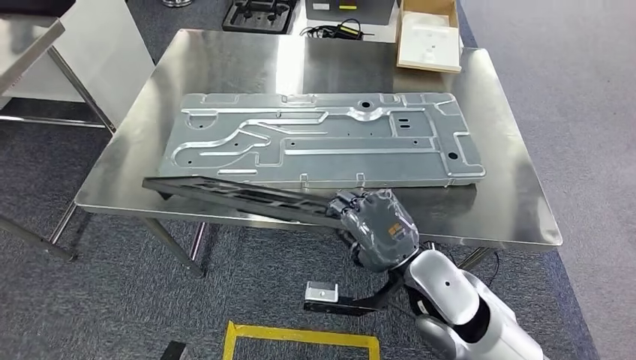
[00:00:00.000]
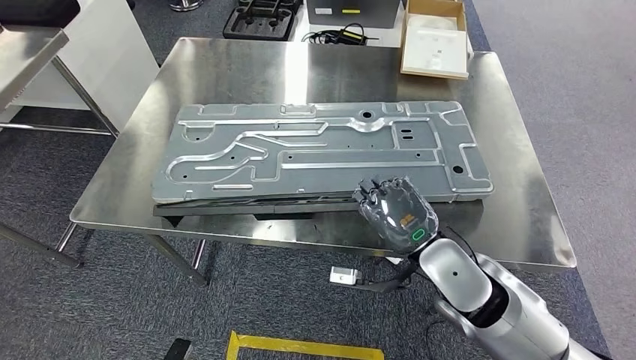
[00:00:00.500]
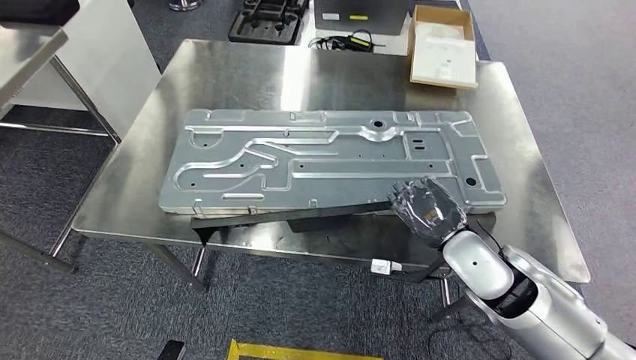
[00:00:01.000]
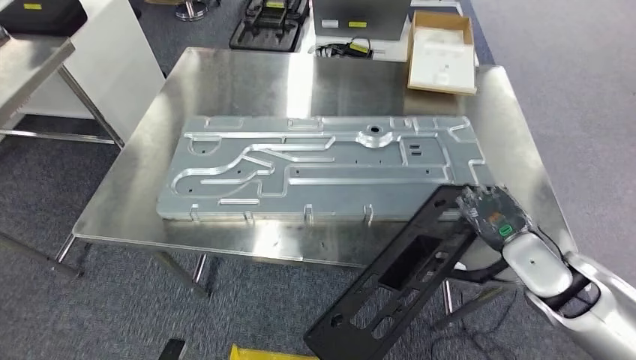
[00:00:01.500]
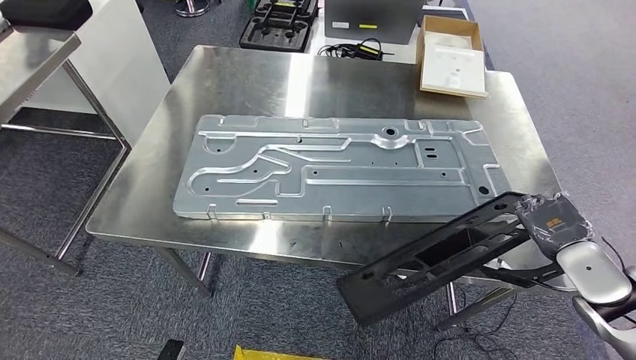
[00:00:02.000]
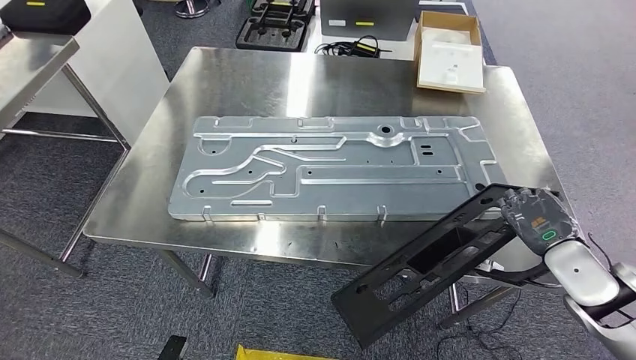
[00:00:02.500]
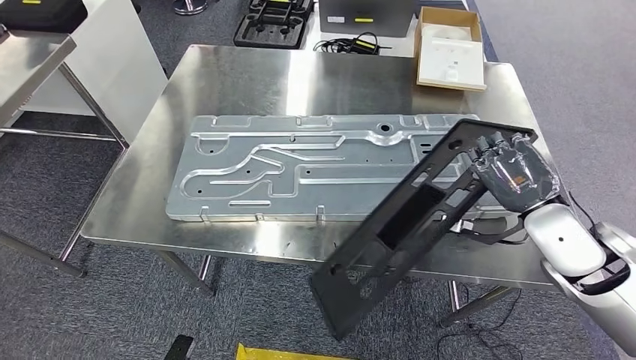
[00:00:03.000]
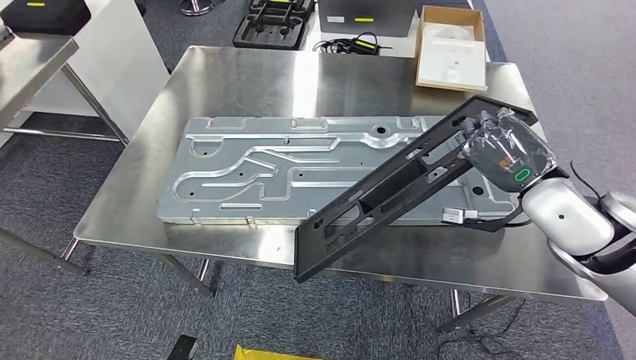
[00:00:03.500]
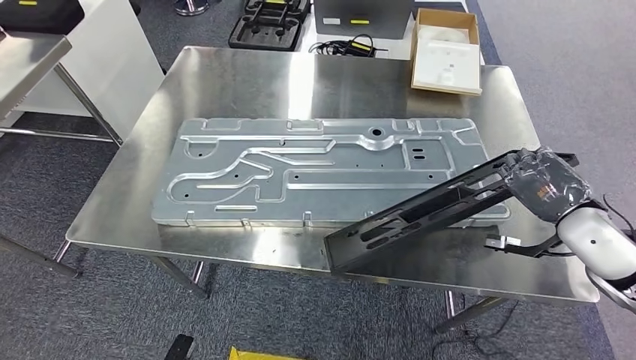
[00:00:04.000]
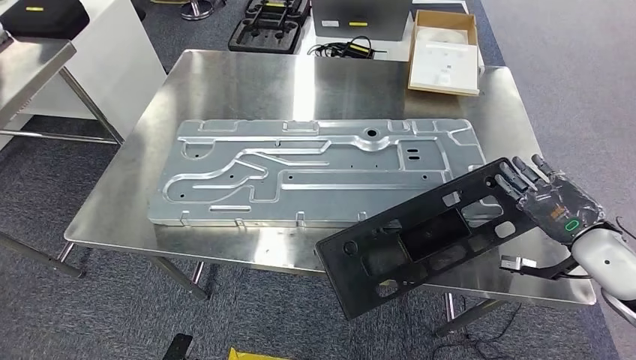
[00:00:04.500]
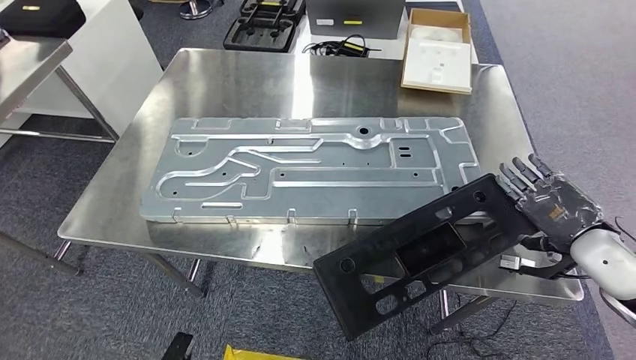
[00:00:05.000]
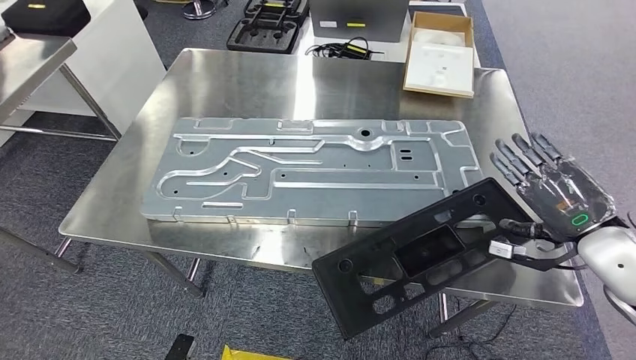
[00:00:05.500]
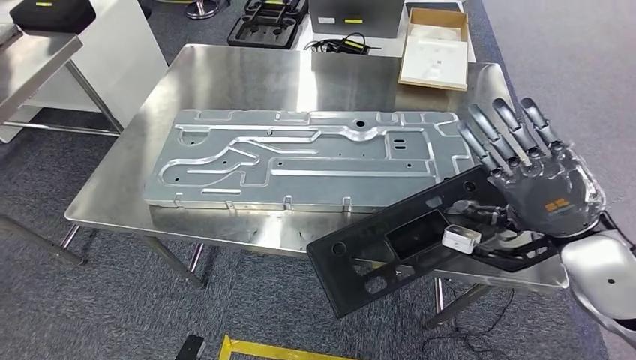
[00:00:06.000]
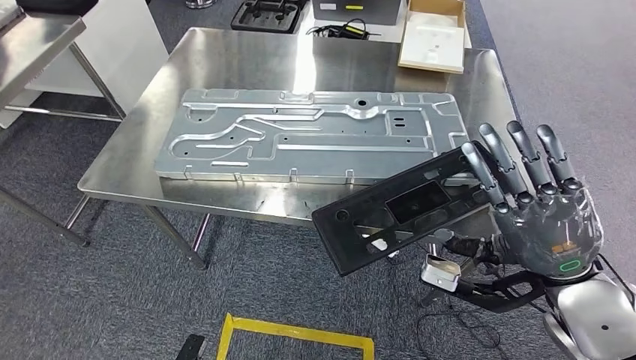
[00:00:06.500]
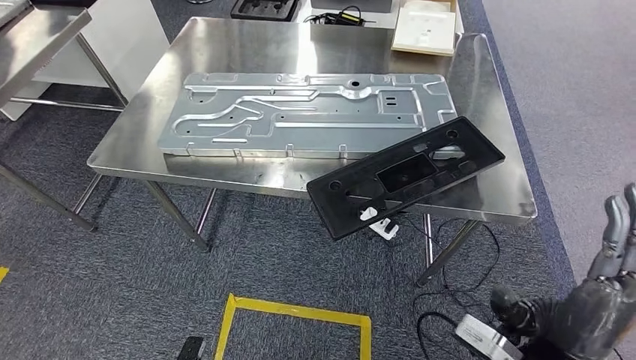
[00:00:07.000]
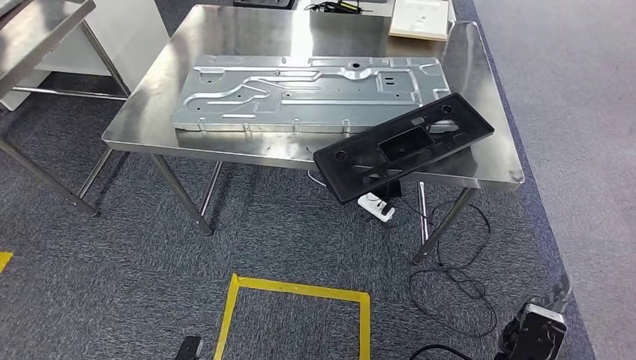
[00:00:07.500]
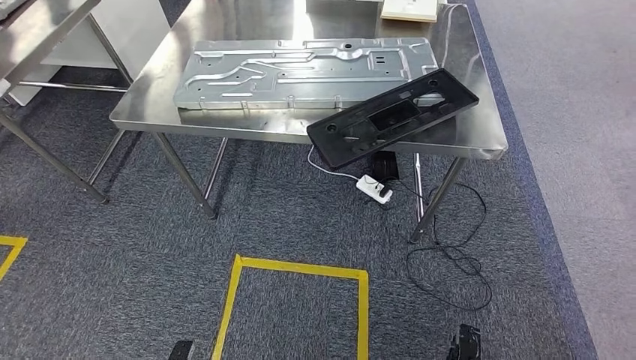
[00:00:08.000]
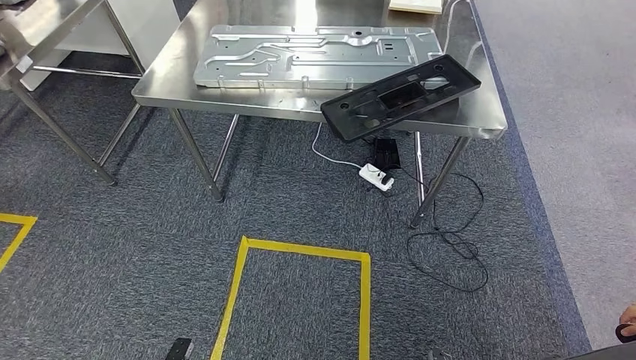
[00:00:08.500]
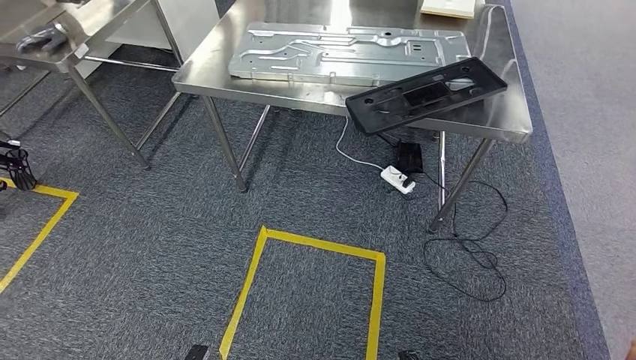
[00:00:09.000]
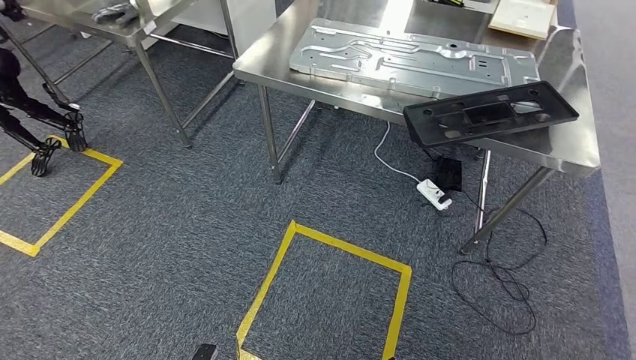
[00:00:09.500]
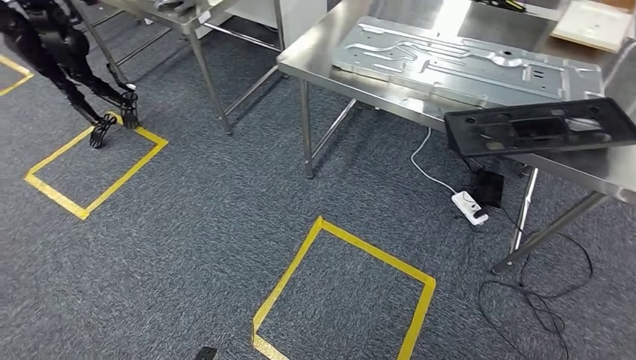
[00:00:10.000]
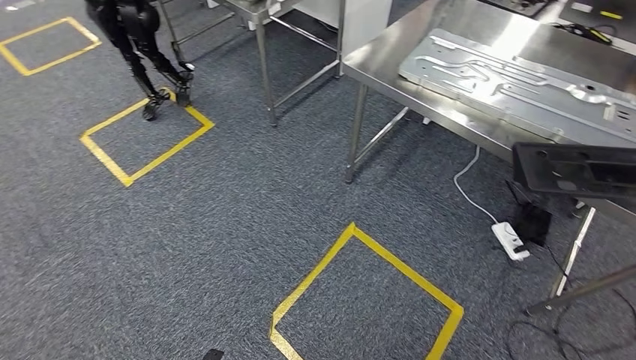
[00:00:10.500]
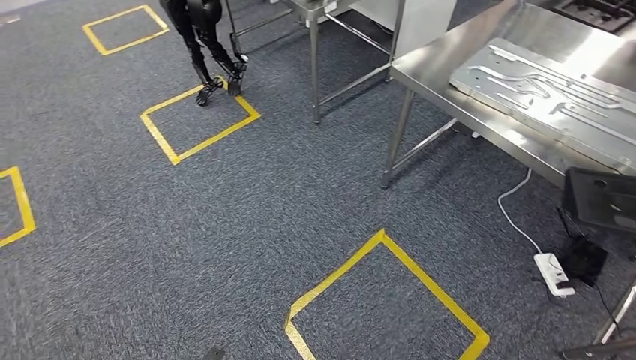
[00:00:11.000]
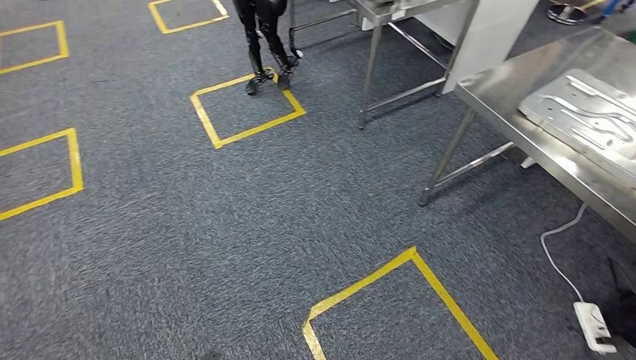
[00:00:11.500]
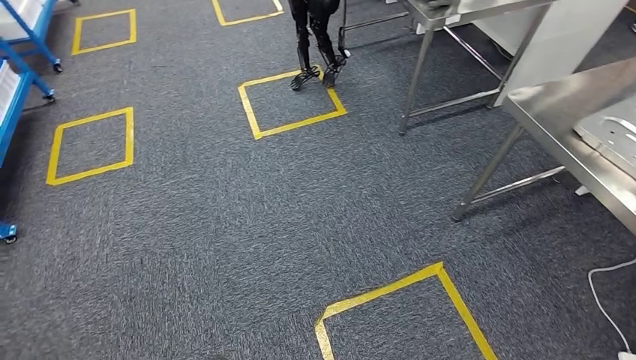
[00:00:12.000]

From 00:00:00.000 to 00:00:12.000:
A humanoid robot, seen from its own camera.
Step, from 00:00:00.000 to 00:00:08.500: Insert the large material into the corresponding slot on the workbench.

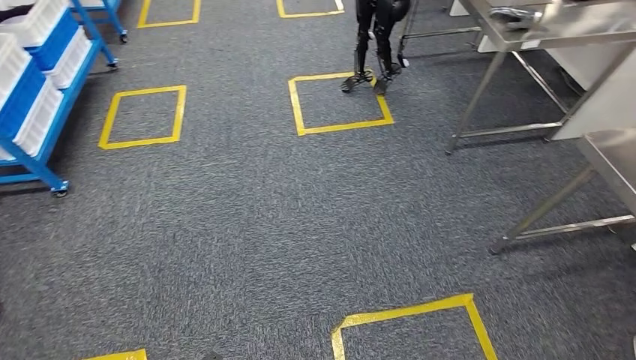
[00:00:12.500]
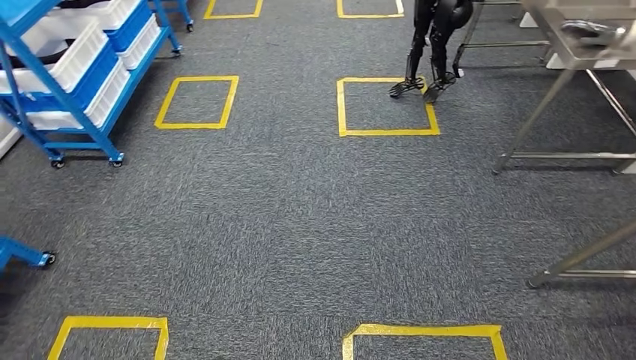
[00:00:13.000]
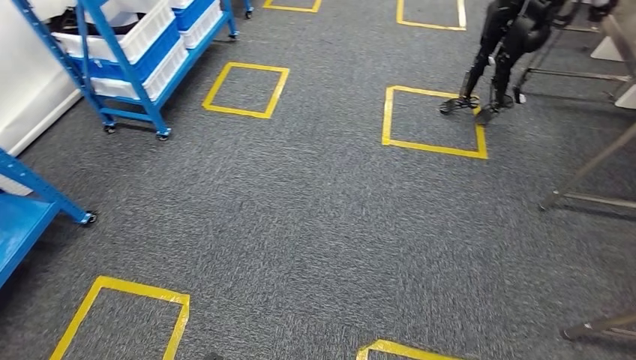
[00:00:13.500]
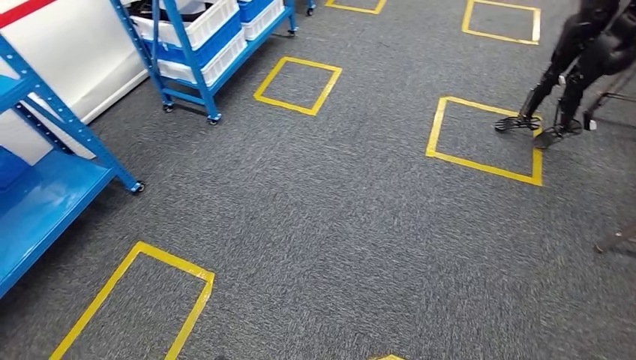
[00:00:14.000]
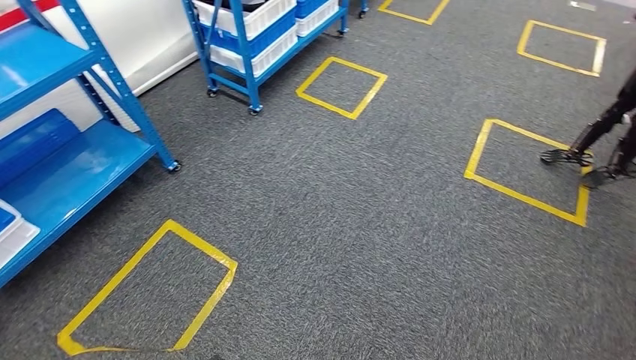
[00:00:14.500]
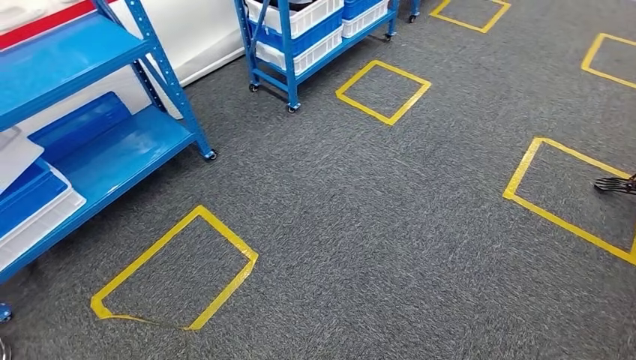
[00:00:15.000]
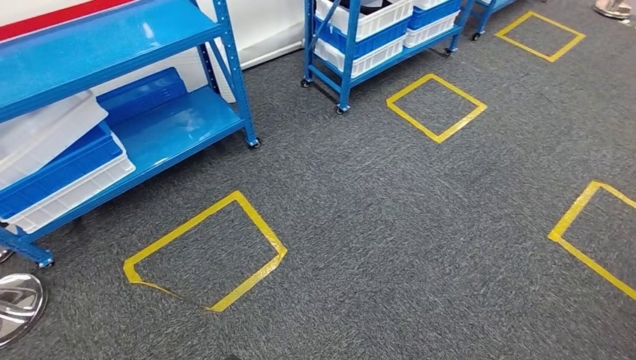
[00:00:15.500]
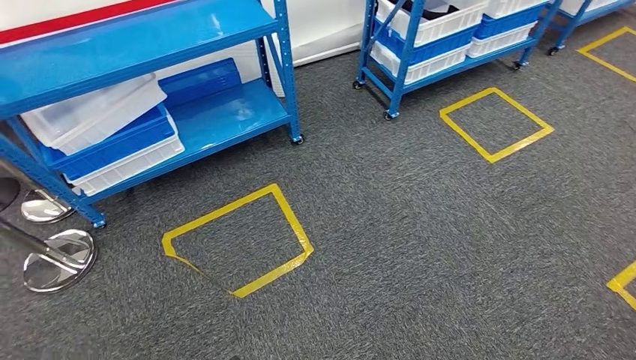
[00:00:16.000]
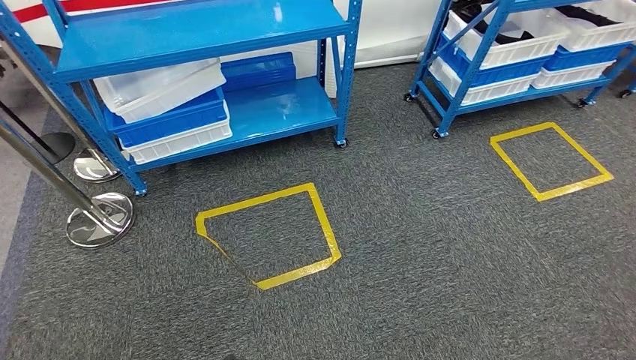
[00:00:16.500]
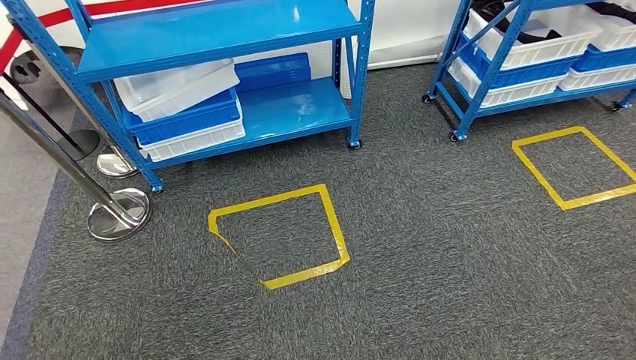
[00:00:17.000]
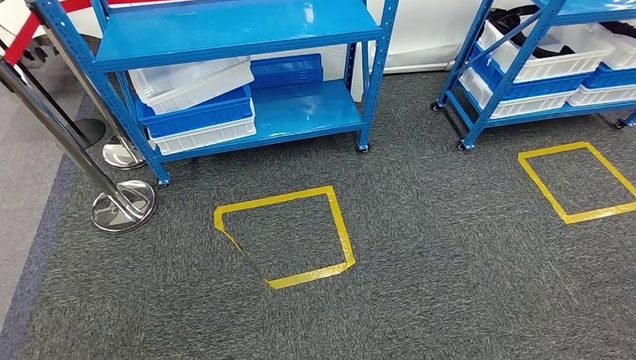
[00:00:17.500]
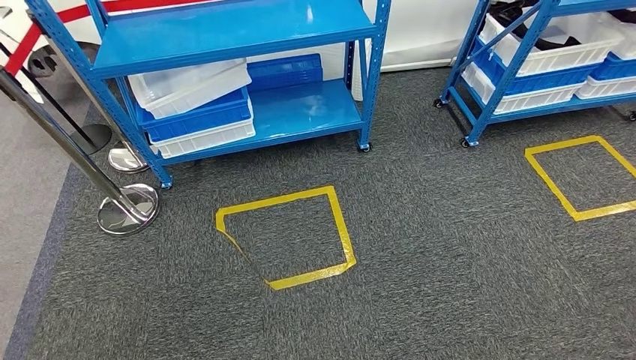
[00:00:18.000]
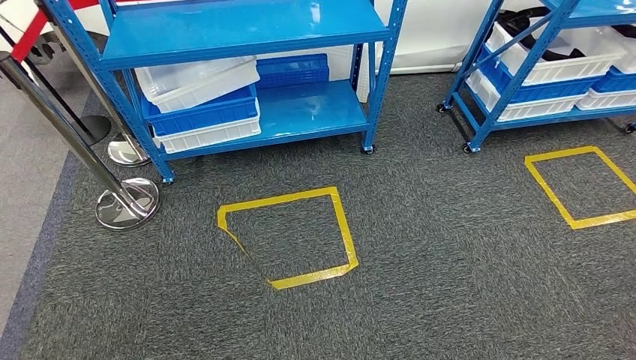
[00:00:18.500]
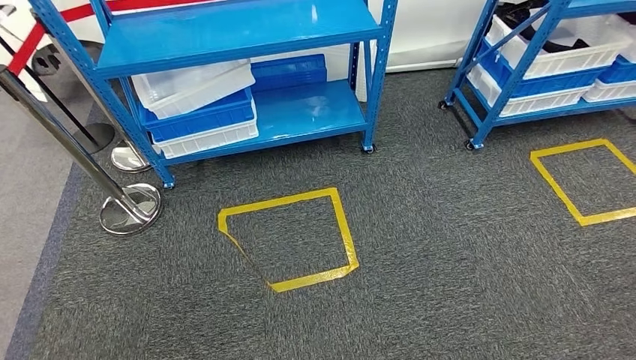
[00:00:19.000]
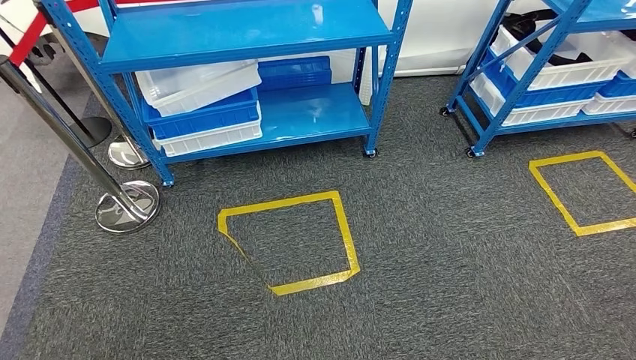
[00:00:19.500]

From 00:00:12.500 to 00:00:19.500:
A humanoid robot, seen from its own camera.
Step, from 00:00:12.500 to 00:00:19.500: Move to the initial position of the shelf.
